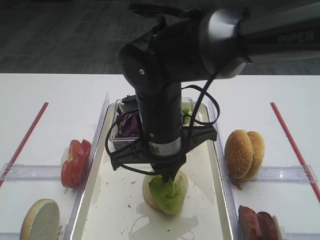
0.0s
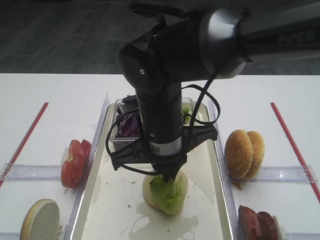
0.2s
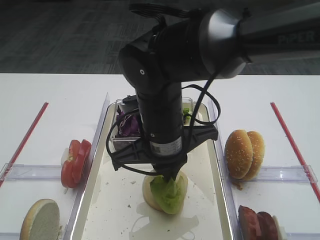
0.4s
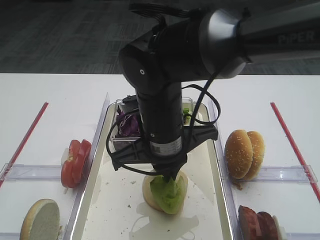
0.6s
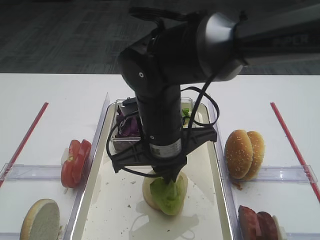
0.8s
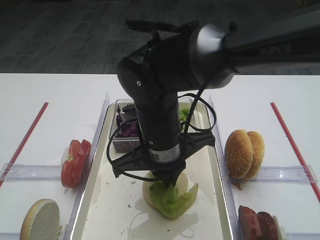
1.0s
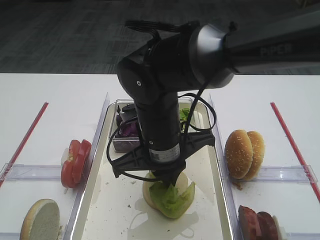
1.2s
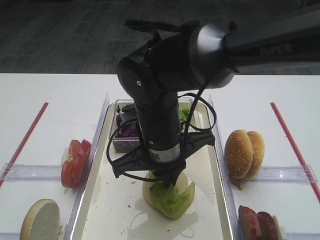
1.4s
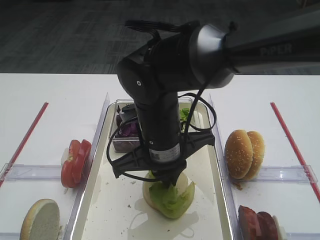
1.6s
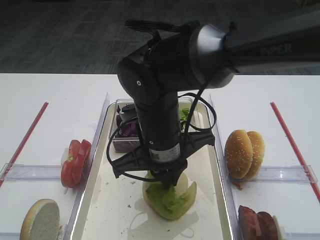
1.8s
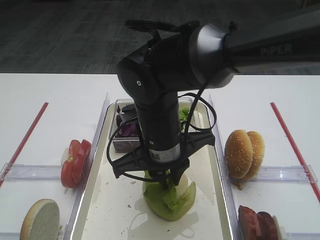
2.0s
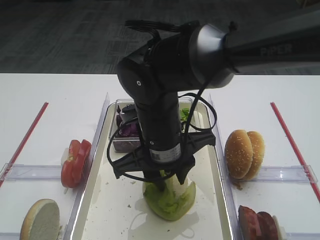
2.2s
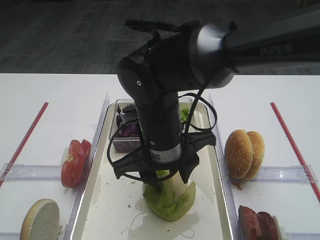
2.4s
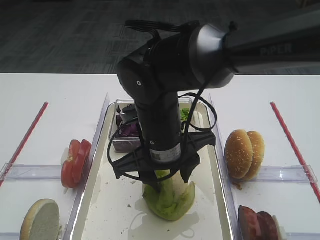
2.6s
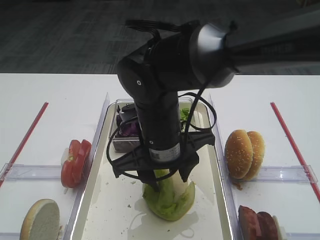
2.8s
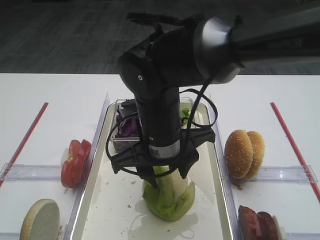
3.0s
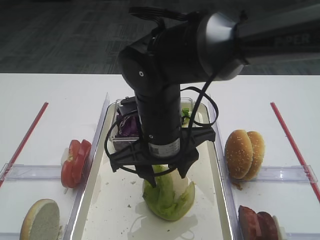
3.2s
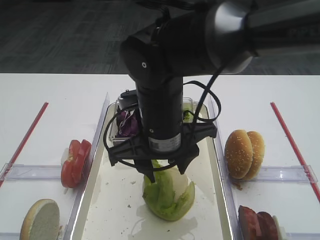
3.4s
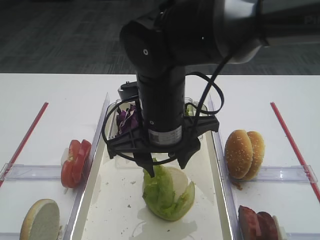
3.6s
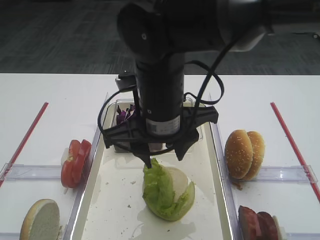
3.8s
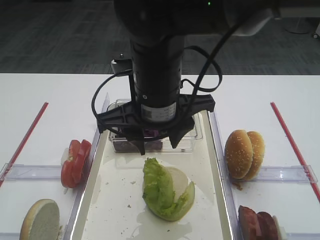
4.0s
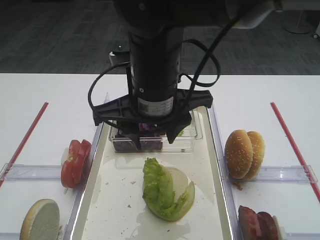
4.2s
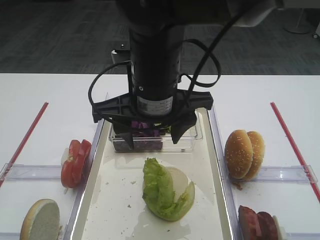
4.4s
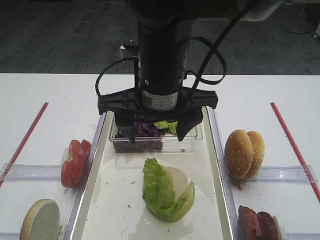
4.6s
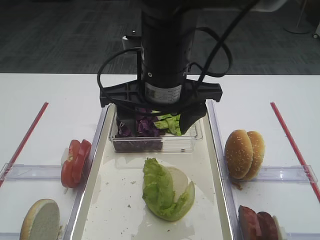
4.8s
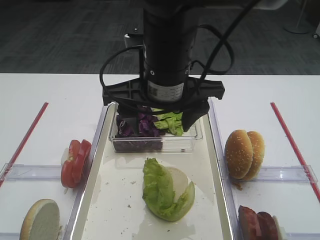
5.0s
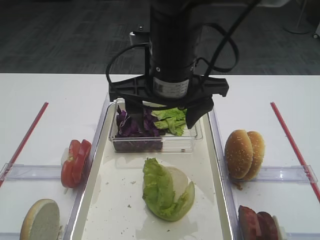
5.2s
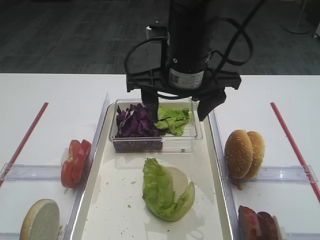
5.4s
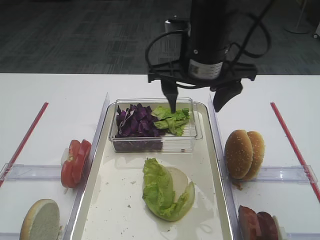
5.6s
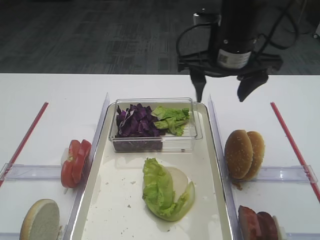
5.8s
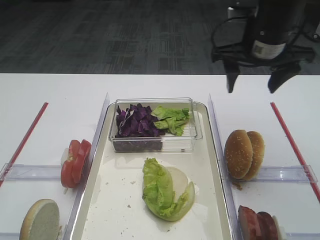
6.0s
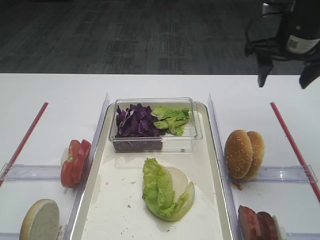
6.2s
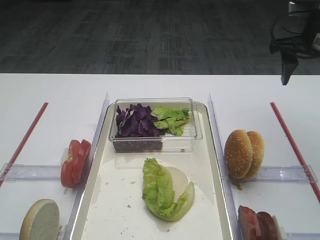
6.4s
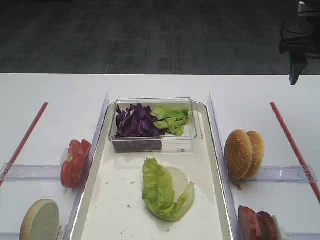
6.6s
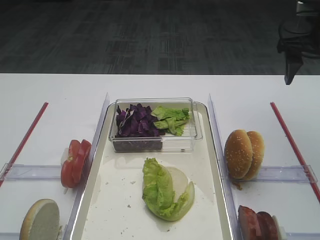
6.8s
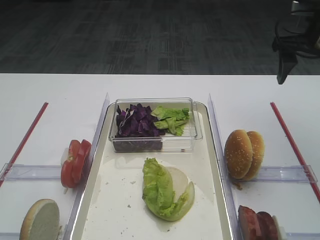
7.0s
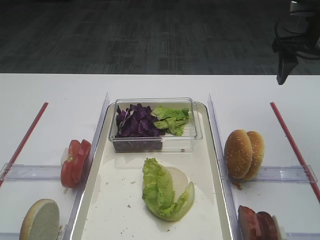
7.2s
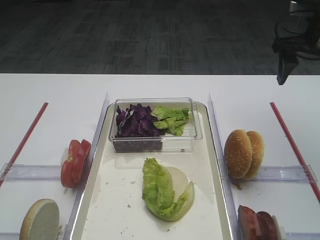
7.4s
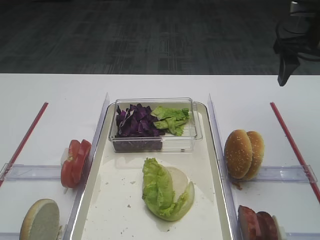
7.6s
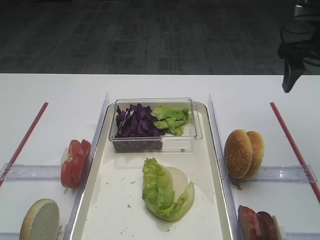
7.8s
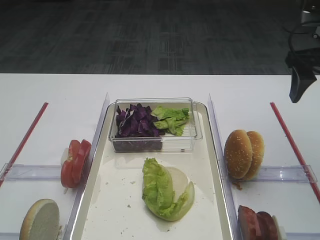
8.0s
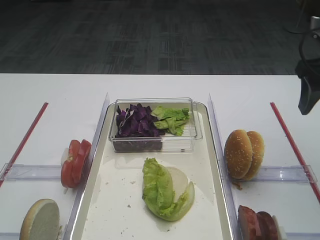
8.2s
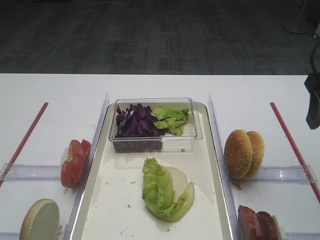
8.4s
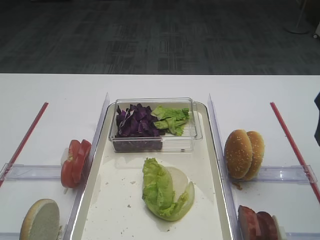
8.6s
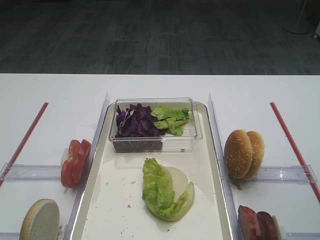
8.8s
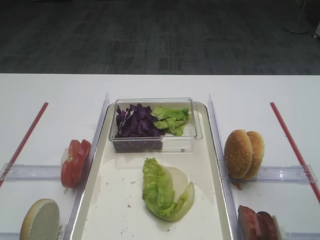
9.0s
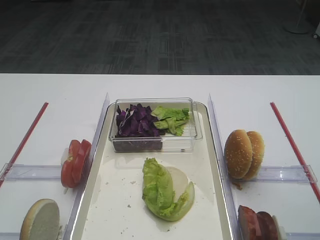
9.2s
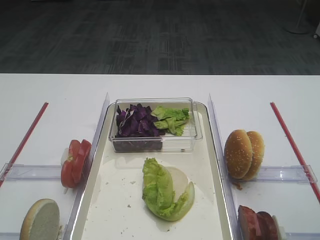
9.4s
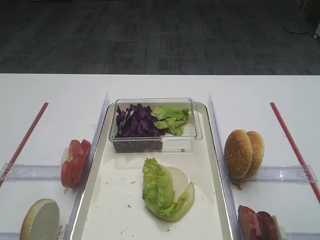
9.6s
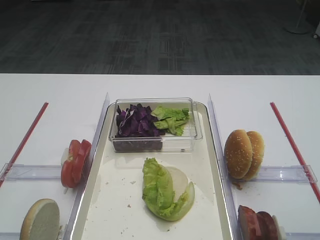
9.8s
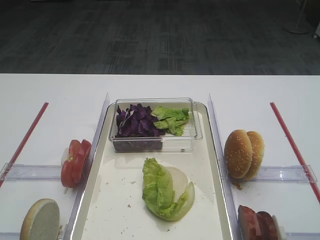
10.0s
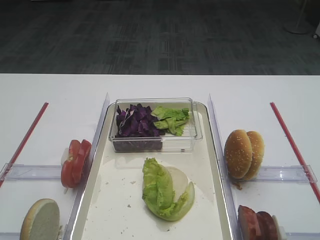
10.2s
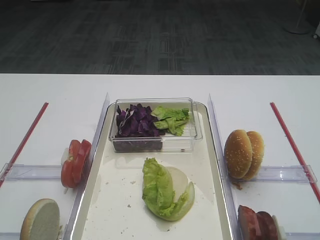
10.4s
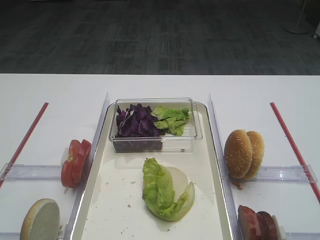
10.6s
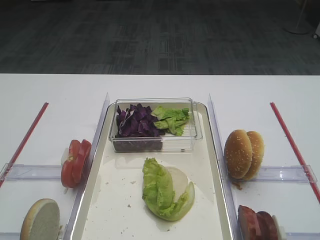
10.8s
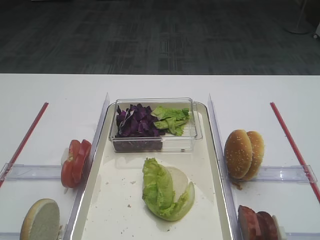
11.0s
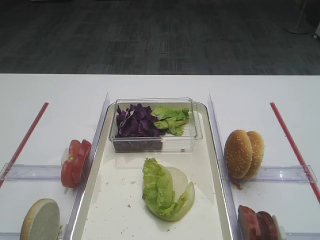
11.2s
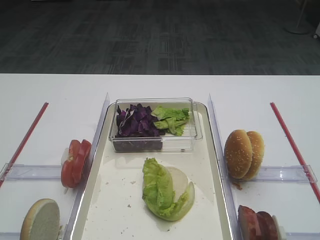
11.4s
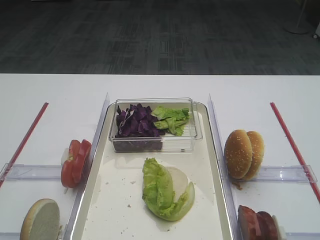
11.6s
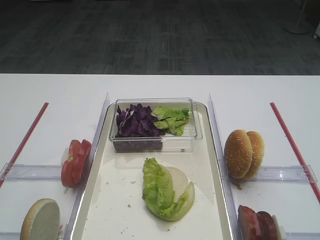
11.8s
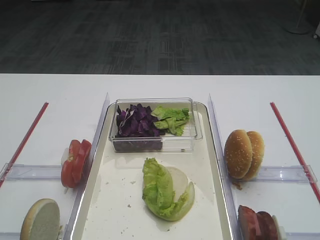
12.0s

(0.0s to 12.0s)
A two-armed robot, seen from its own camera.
Step, 0.0s - 3.8s: Place the lettuce leaf on the bread slice with the right gripper.
0.0s - 1.6s: The grippers move only a little.
1.6s - 3.0s: The right gripper opens up.
3.0s - 4.4s: The right gripper heads upward, covering approximately 10 cm.
4.4s - 6.0s: The right gripper goes some 20 cm to the right and forward.
6.0s - 7.6s: The right gripper goes approximately 10 cm to the right.
7.6s - 9.0s: The right gripper goes some 20 cm backward.

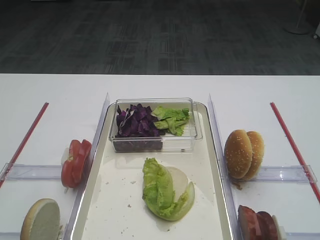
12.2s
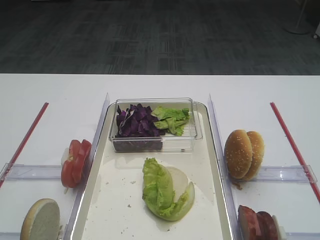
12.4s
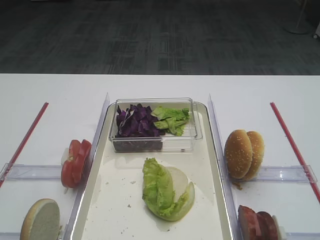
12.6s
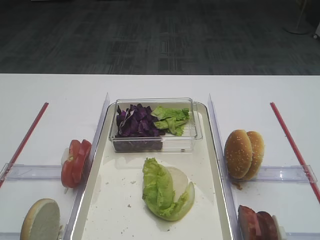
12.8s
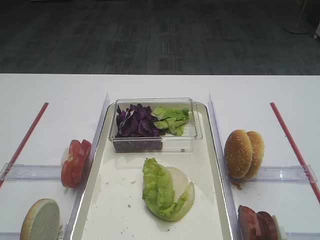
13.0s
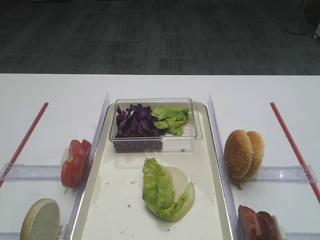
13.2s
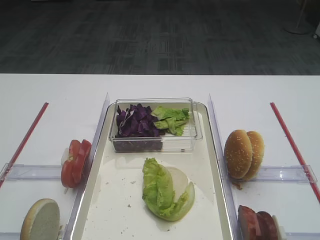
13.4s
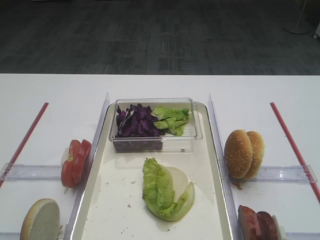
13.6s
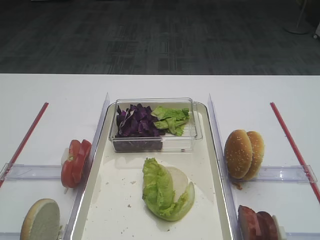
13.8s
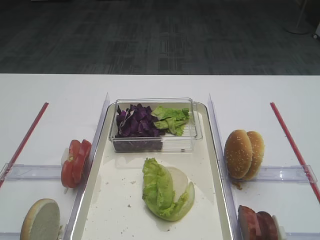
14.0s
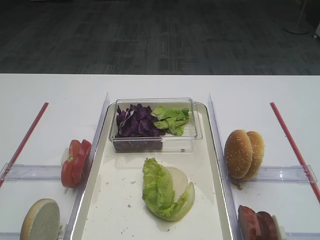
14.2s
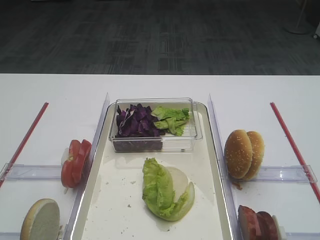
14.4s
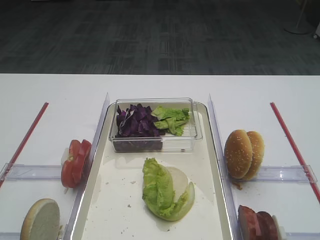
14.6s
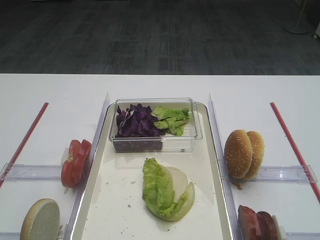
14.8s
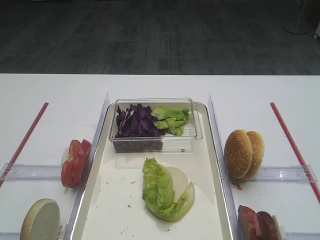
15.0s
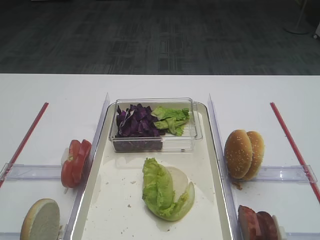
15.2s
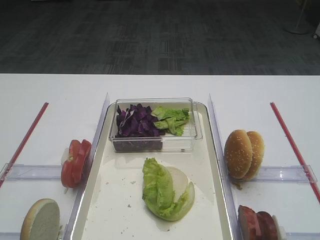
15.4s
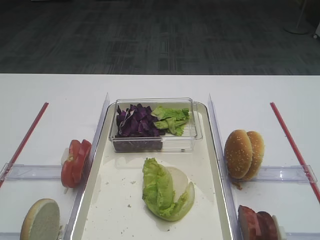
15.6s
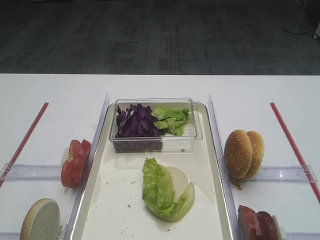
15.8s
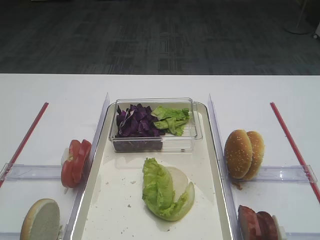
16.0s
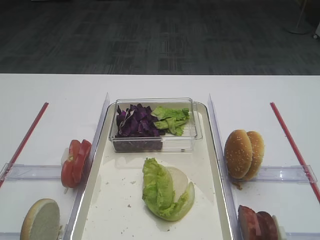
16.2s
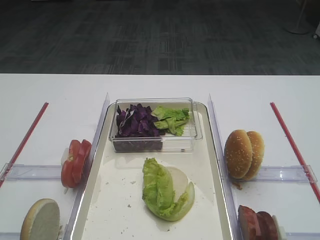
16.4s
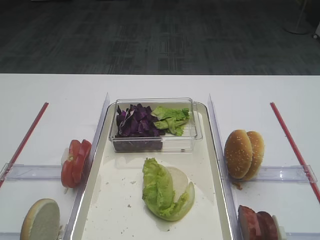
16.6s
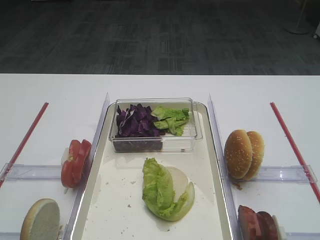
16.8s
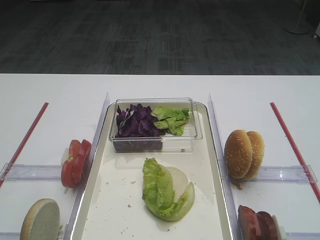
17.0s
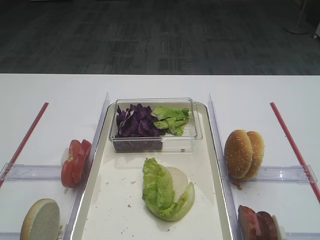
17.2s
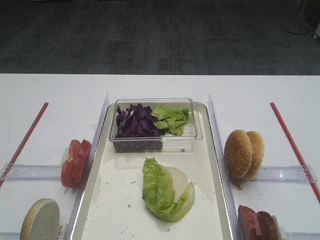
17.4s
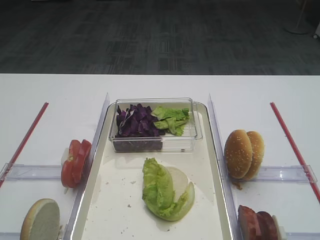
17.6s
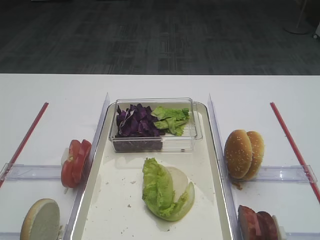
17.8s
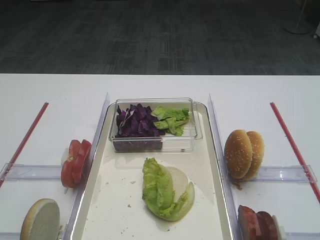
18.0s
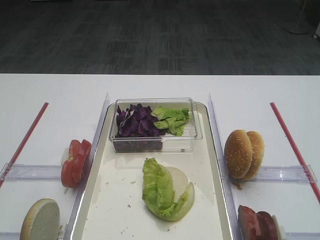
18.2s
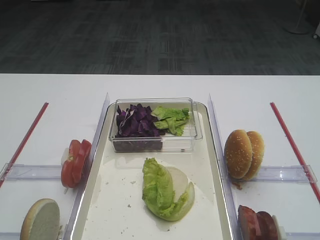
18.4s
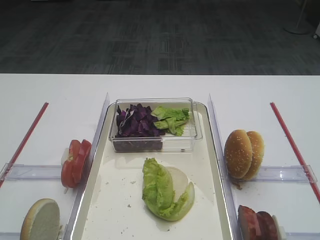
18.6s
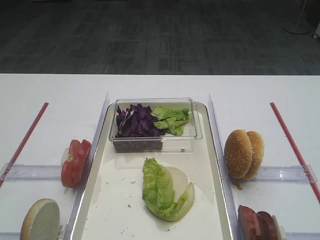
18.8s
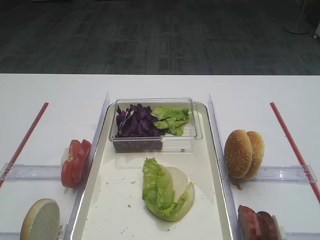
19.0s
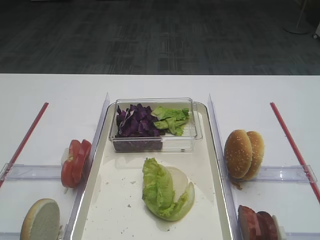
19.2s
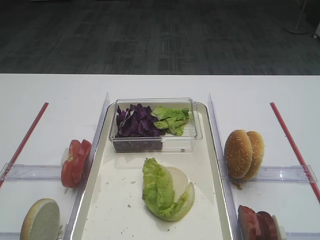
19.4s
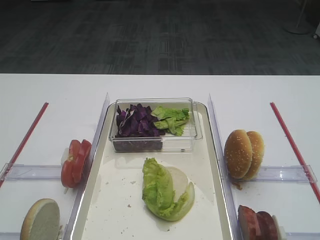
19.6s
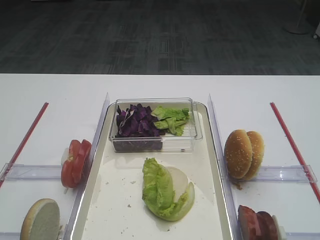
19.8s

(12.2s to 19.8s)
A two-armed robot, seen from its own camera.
12.2s - 18.2s: The two grippers keep their place.

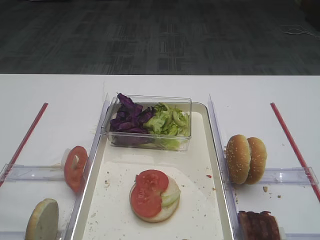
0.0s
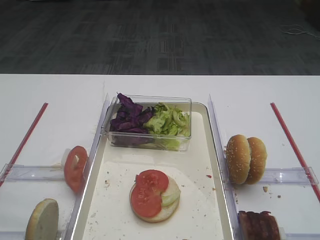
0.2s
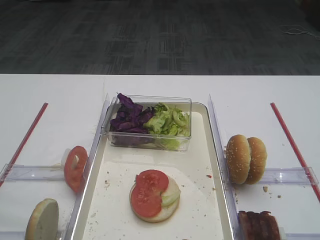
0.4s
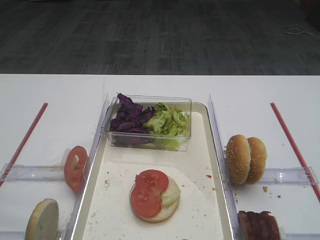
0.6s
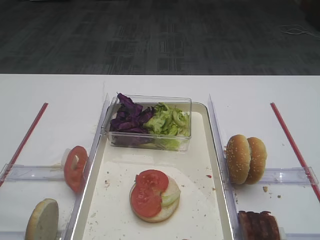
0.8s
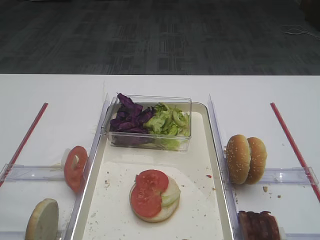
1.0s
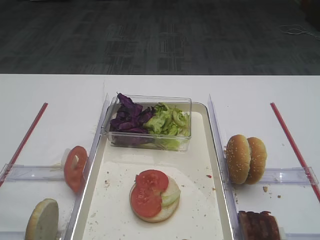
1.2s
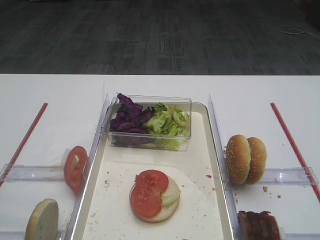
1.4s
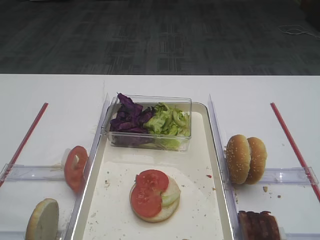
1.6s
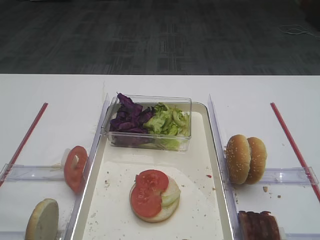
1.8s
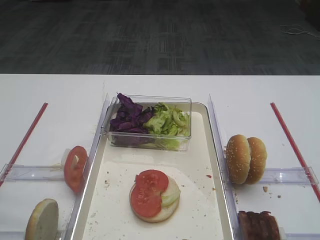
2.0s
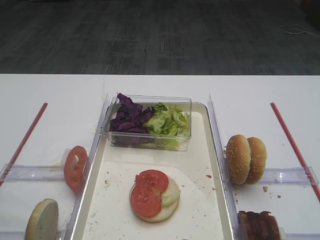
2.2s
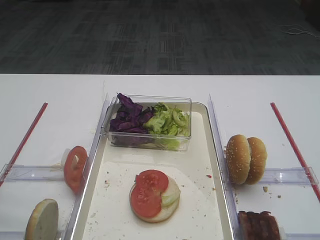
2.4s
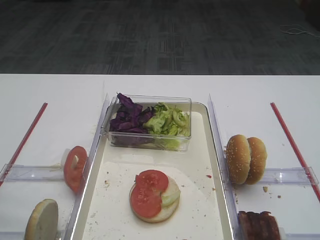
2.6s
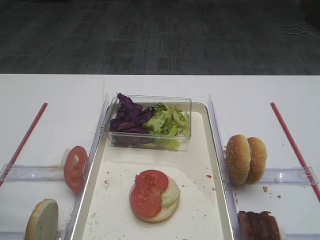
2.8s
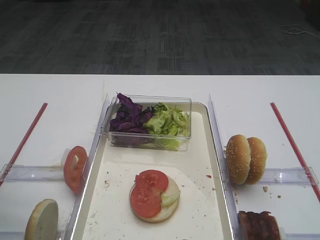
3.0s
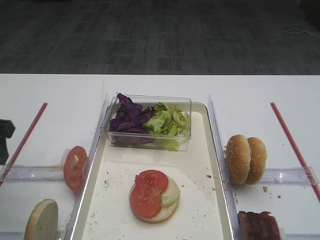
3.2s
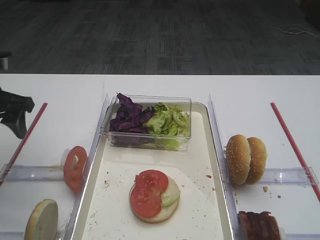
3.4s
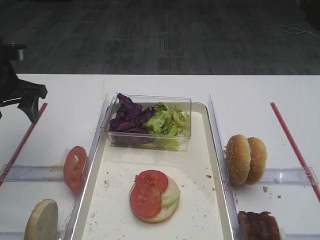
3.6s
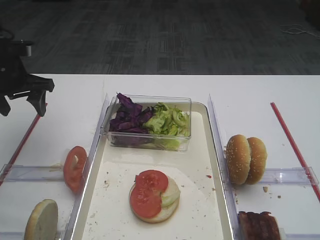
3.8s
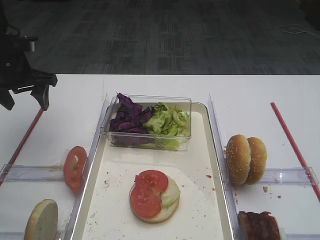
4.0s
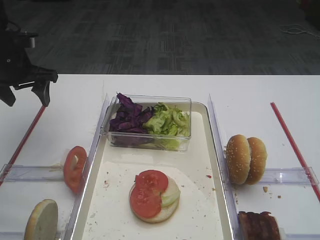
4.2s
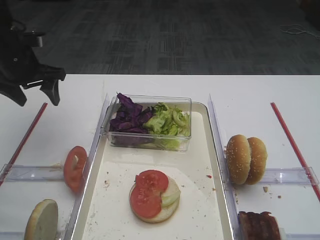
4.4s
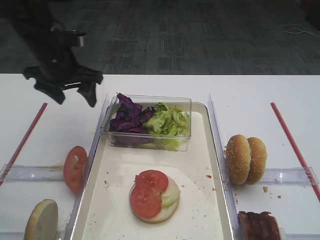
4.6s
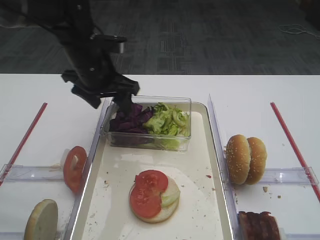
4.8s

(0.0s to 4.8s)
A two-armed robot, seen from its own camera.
1.6s - 3.2s: The left gripper is displaced forward by some 25 cm.
3.2s - 4.8s: The left gripper travels to the right and forward by roughly 25 cm.
